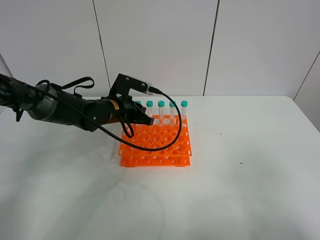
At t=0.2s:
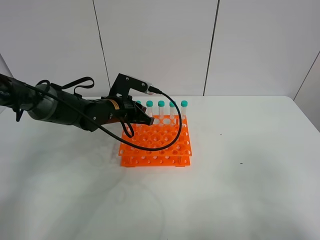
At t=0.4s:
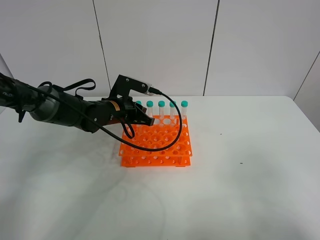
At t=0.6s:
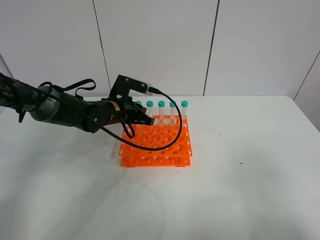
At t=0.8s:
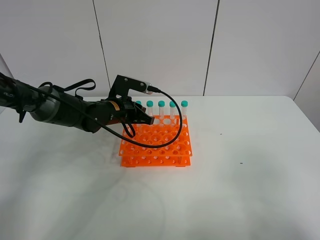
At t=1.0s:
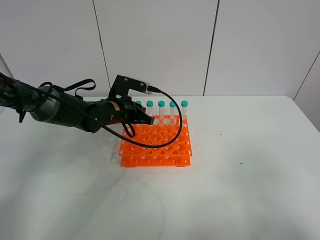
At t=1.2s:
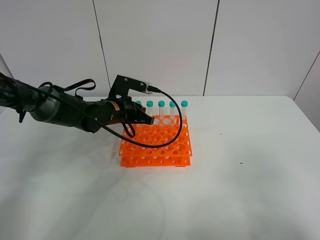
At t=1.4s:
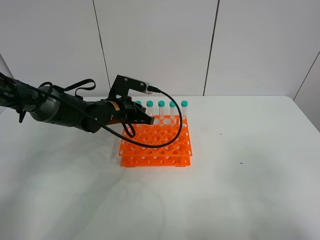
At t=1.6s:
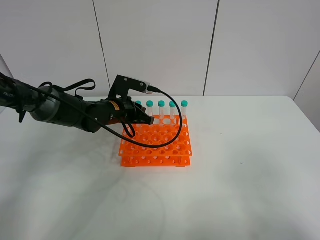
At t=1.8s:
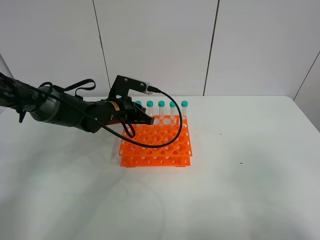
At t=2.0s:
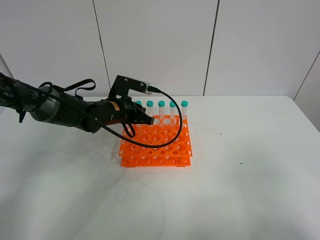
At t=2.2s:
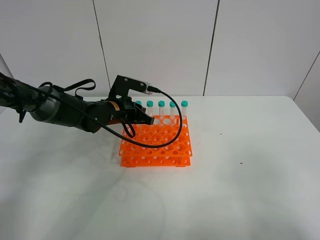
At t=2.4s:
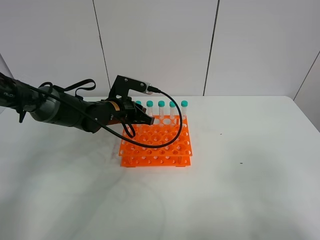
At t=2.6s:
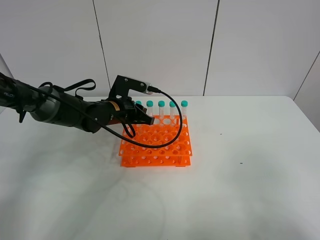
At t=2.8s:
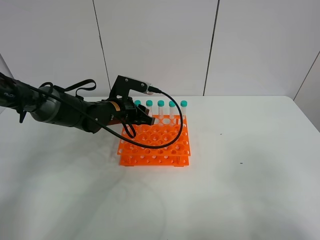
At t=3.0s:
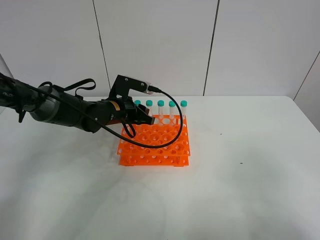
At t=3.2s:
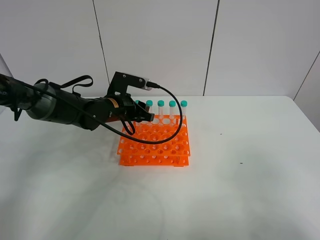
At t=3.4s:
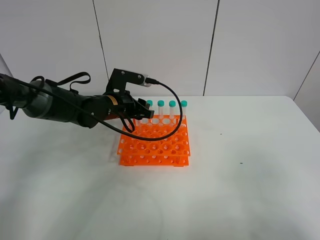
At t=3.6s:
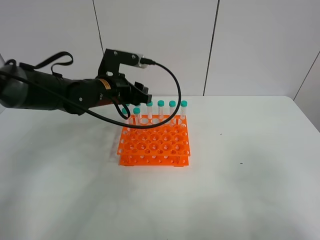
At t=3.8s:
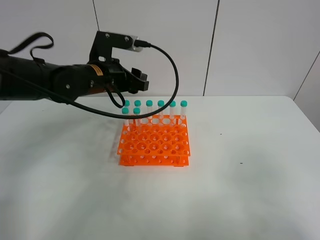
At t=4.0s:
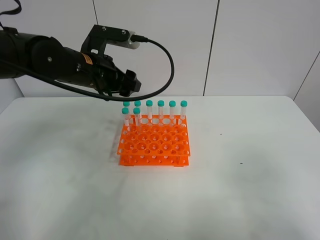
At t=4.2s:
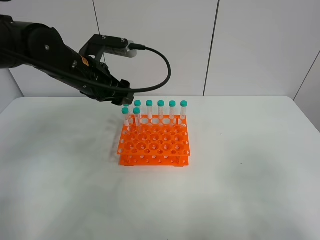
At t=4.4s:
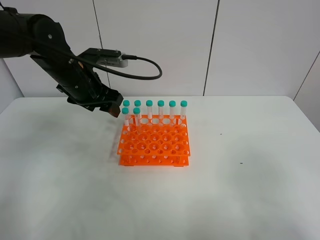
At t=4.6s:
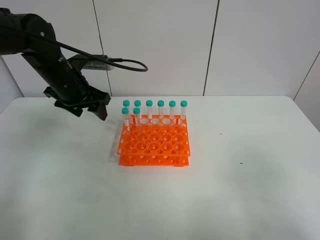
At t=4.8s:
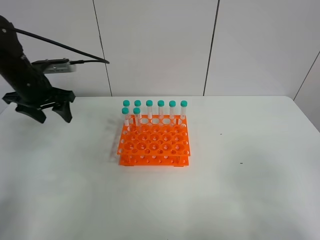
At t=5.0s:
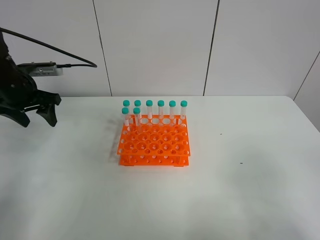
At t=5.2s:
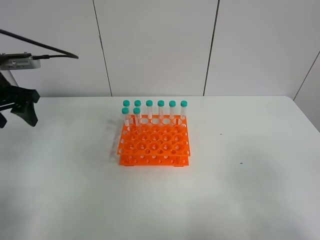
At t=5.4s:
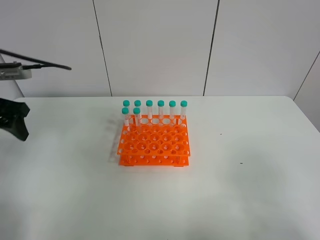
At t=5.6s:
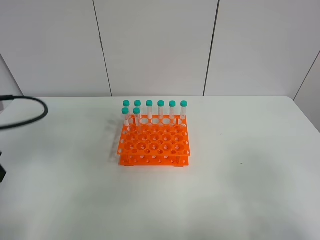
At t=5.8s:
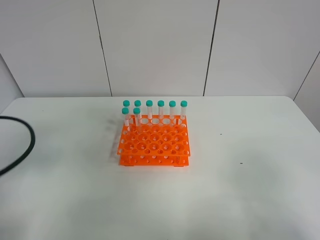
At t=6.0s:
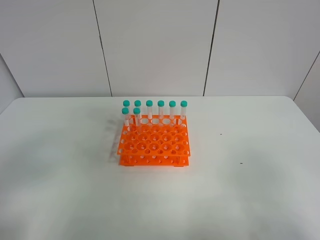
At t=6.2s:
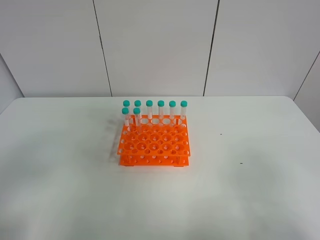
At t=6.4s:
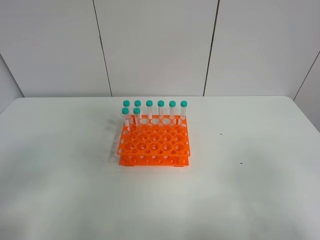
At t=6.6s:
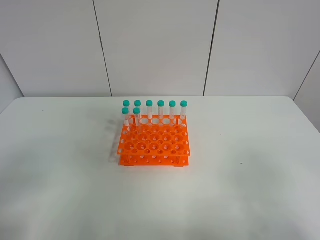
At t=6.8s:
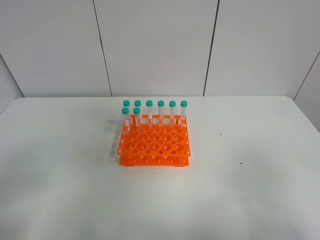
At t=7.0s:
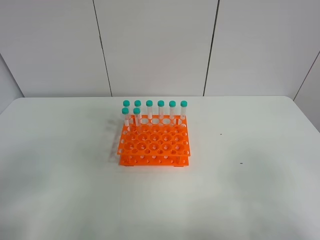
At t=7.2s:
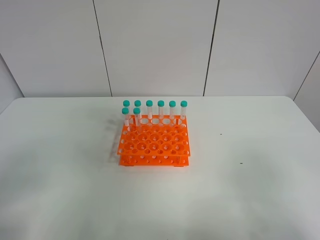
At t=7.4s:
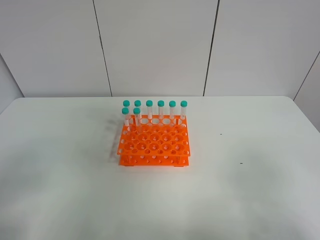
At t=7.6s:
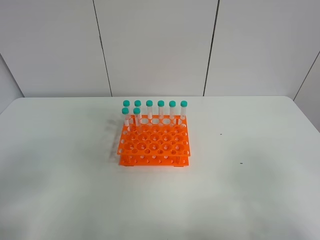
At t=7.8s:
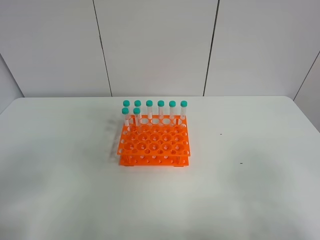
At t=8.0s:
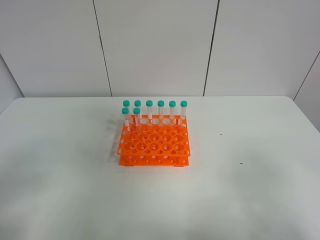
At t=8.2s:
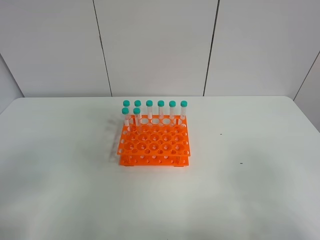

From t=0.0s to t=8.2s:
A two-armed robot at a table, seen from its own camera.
Task of the whole recording: Put the test tube on the table back onto the test tube rack.
Step, from t=0.0s to t=3.8s: Place the test tube on the test tube rack with the left gripper.
From t=0.0s to t=1.6s: Both grippers stay about where they are.
From t=1.6s to t=3.2s: The left gripper opens up.
From t=3.2s to t=5.0s: The left gripper shifts roughly 20 cm to the left and upward.
From t=5.0s to t=6.6s: The left gripper goes about 35 cm backward.
From t=6.6s to t=8.2s: Both grippers stay about where they are.
